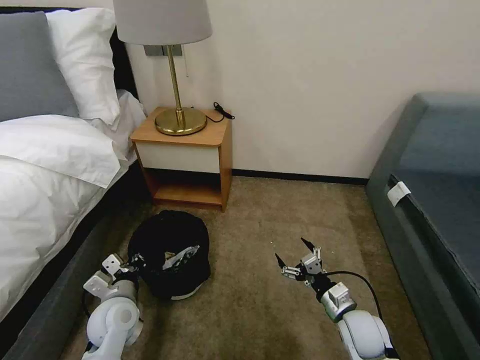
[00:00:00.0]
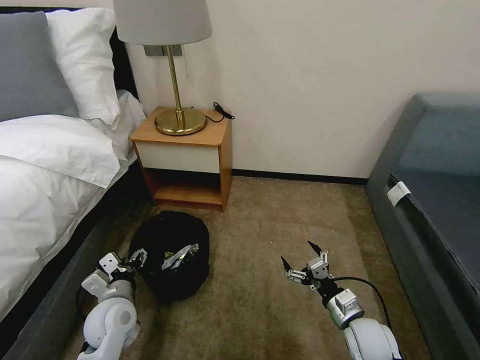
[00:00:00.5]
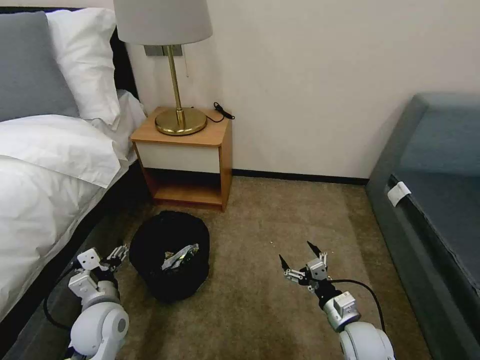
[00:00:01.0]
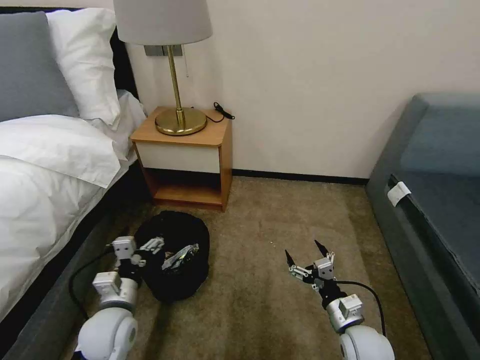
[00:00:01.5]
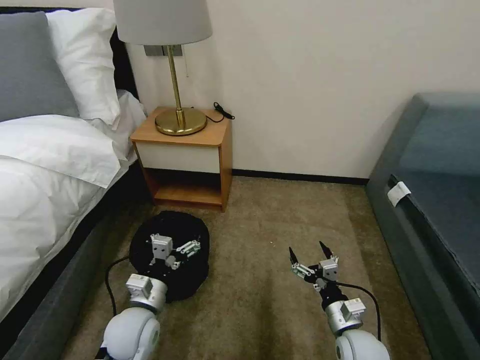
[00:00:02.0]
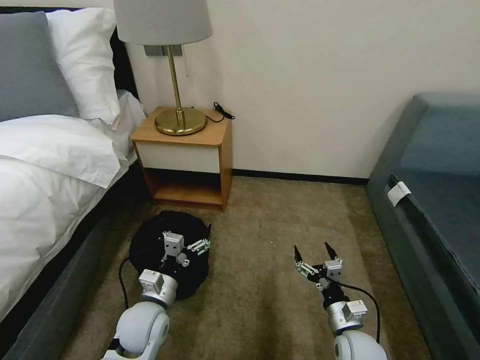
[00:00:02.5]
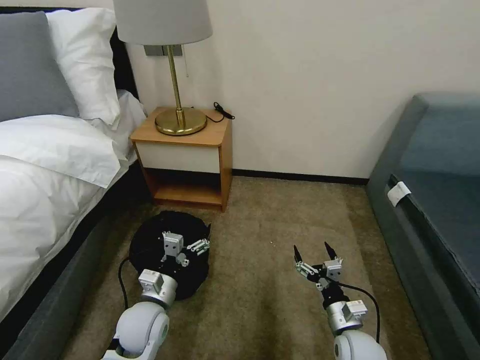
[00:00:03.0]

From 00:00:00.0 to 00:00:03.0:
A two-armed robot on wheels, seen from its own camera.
Task of the whole recording: Pick up the trash bin, then pick up the garbage on the floor and place it into the trash bin.
From 00:00:00.0 to 00:00:01.5: The left gripper opens up.
From 00:00:01.5 to 00:00:03.0: The left gripper is displaced to the right by approximately 5 cm.

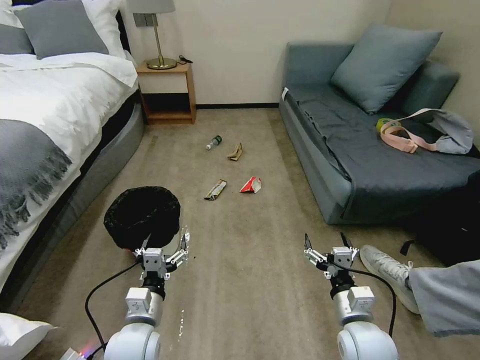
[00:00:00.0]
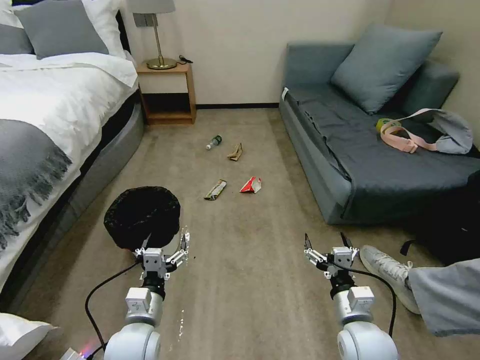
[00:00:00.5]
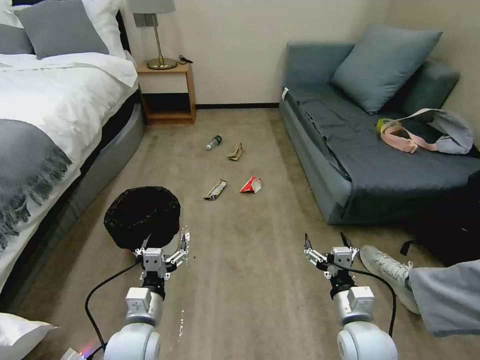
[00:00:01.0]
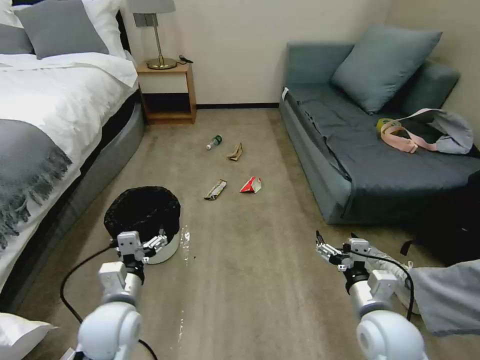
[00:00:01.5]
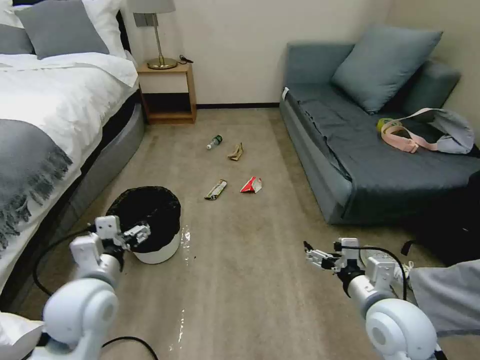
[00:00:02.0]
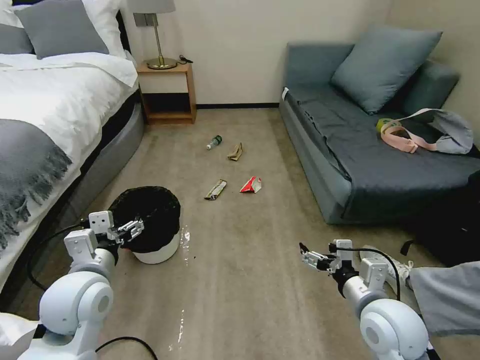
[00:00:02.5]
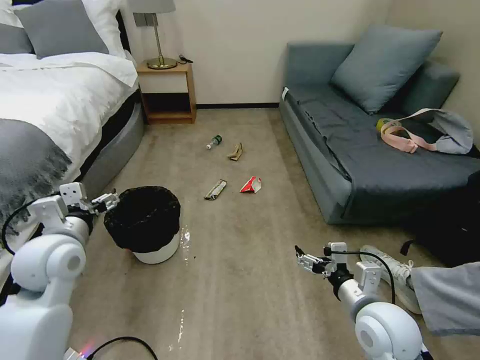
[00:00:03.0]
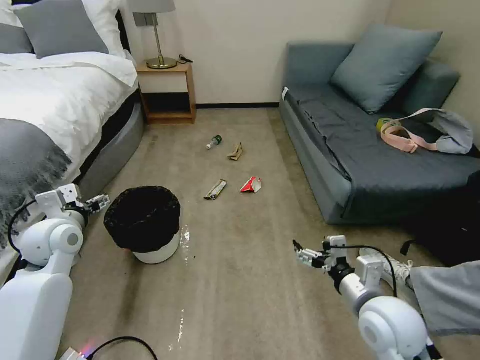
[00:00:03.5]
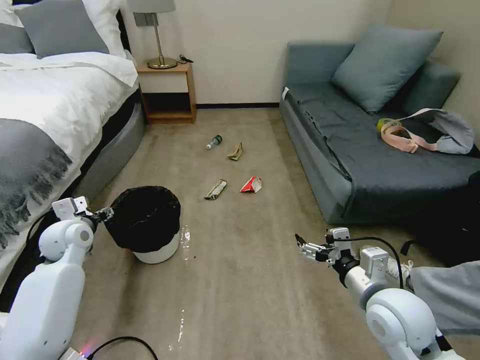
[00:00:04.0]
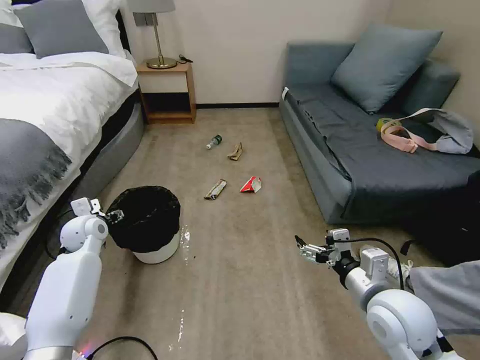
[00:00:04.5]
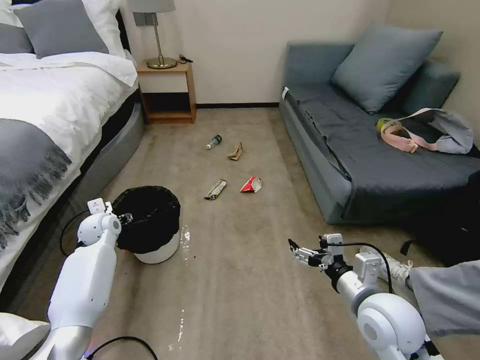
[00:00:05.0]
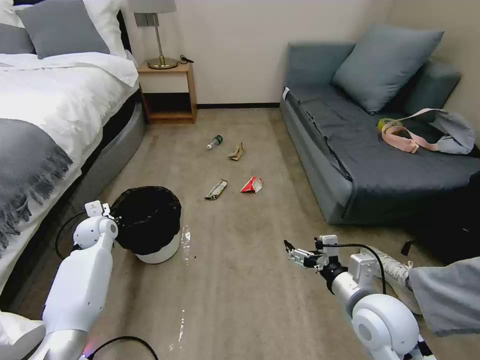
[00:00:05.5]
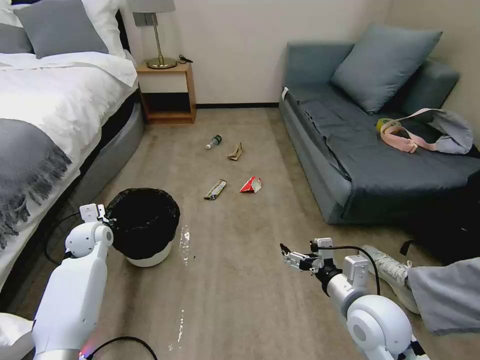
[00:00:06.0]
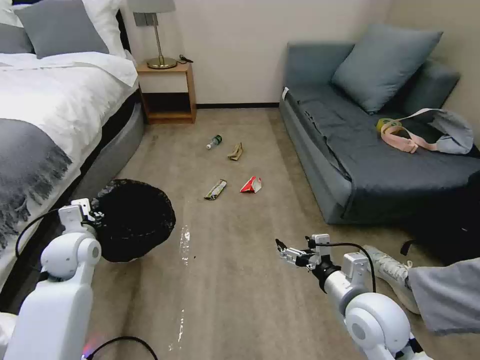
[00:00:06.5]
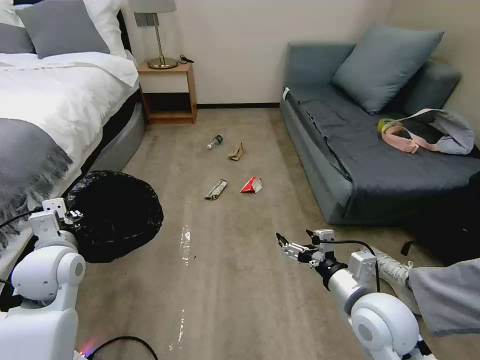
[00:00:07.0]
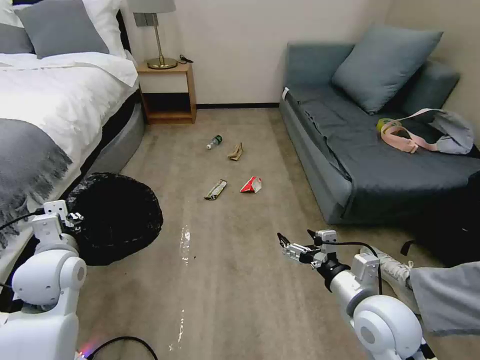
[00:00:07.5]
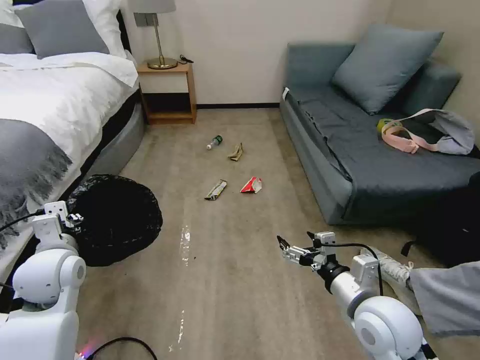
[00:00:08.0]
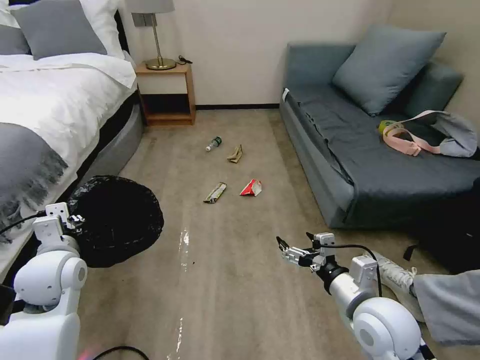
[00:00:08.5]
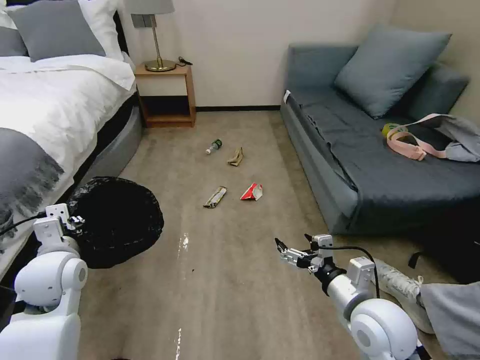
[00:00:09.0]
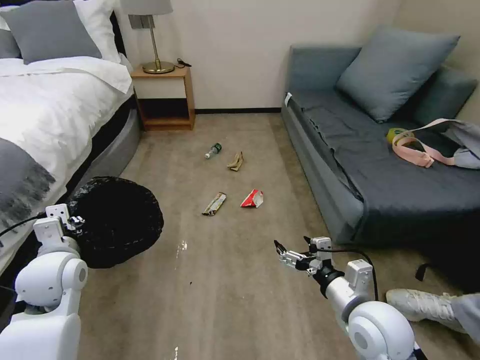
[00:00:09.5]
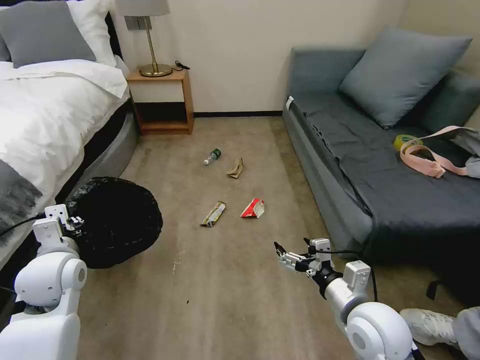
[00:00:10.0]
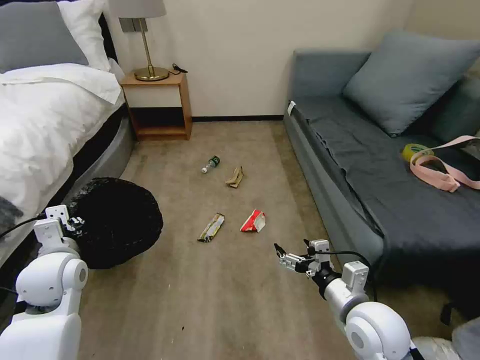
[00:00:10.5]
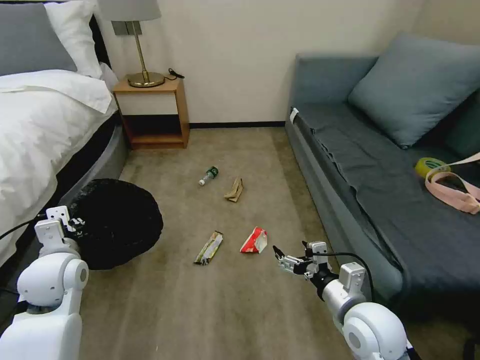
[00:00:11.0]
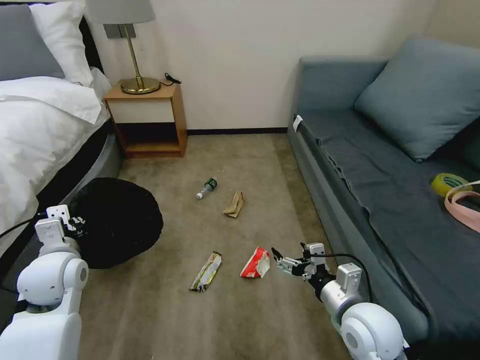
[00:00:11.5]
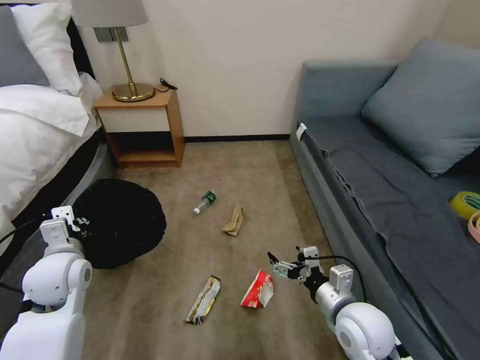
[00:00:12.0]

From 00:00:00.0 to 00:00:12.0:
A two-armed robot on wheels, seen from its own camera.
Task of the whole recording: Pick up the trash bin, then pick up the garbage on the floor and place it into the trash bin.
From 00:00:02.0 to 00:00:04.0: The left gripper travels forward and to the left by about 20 cm.
From 00:00:04.0 to 00:00:06.0: The left gripper travels downward by roughly 5 cm, and closes up.
From 00:00:06.0 to 00:00:08.0: The left gripper shifts some 20 cm backward and upward.

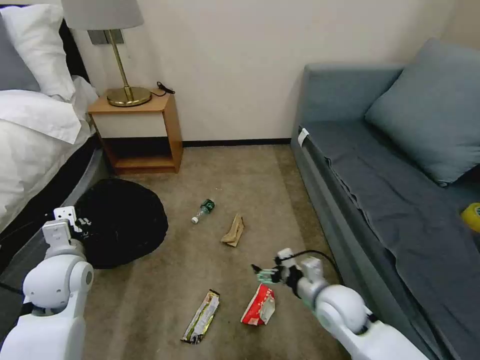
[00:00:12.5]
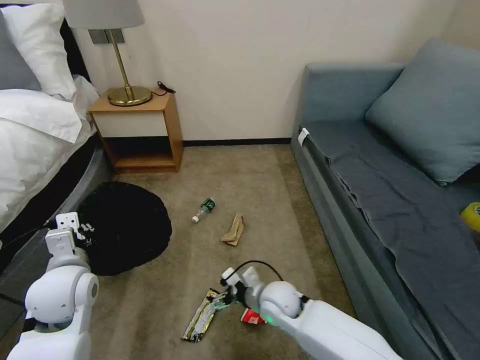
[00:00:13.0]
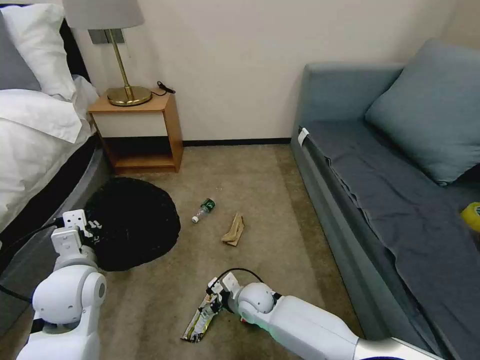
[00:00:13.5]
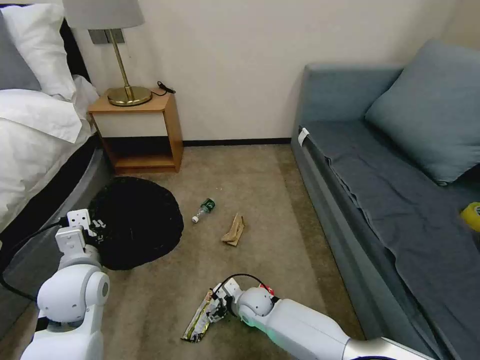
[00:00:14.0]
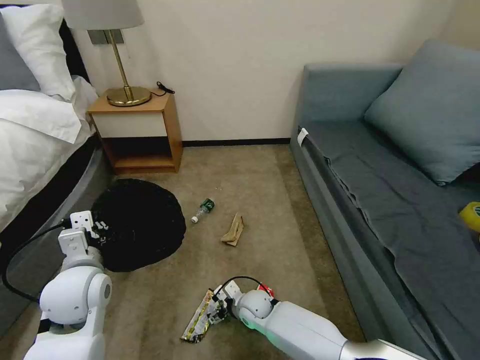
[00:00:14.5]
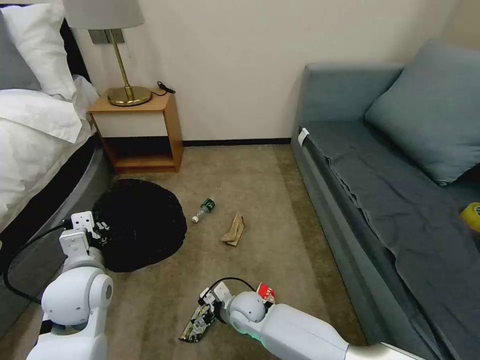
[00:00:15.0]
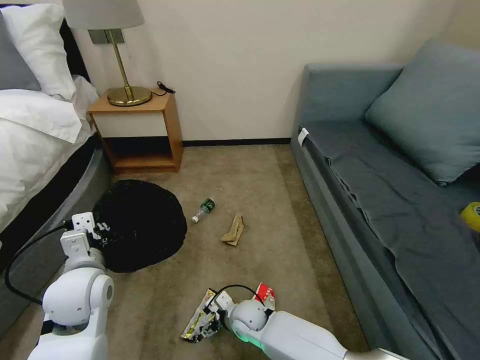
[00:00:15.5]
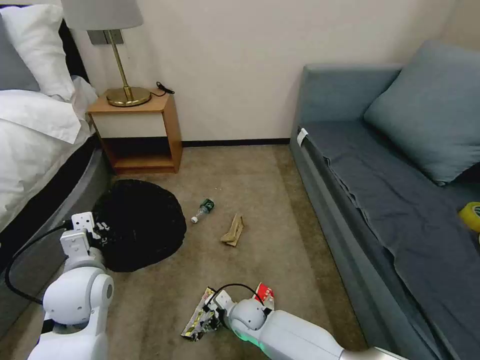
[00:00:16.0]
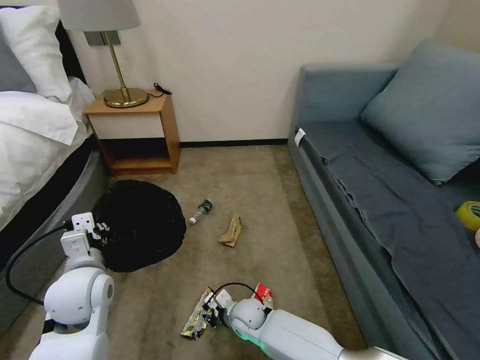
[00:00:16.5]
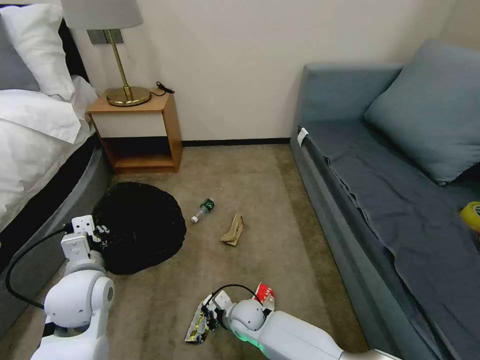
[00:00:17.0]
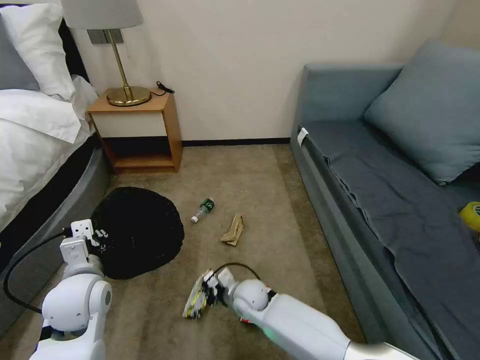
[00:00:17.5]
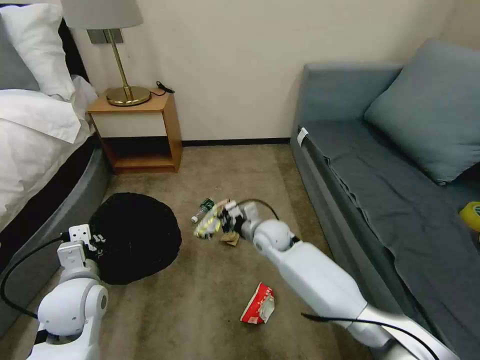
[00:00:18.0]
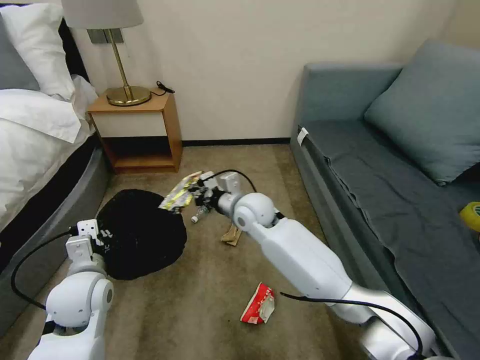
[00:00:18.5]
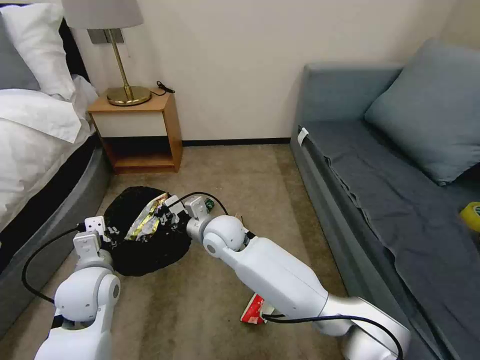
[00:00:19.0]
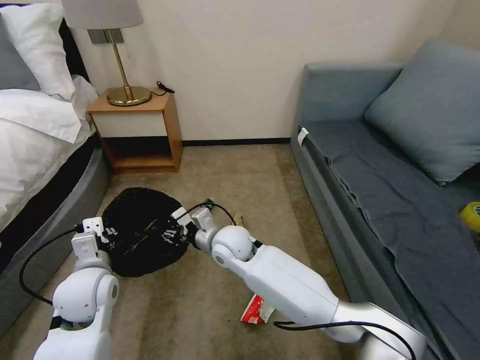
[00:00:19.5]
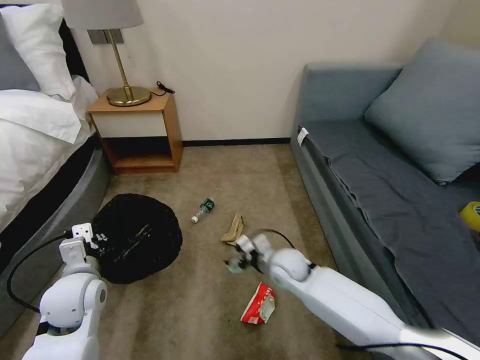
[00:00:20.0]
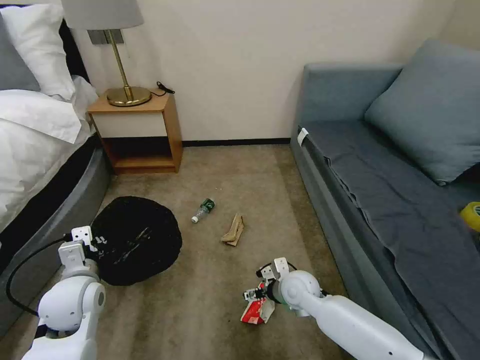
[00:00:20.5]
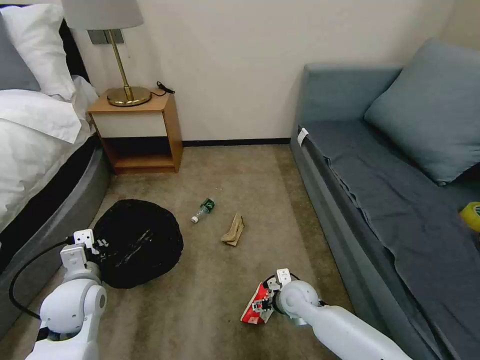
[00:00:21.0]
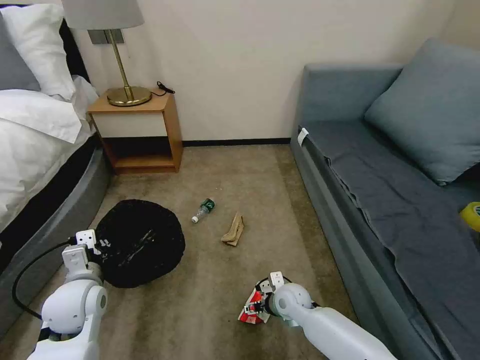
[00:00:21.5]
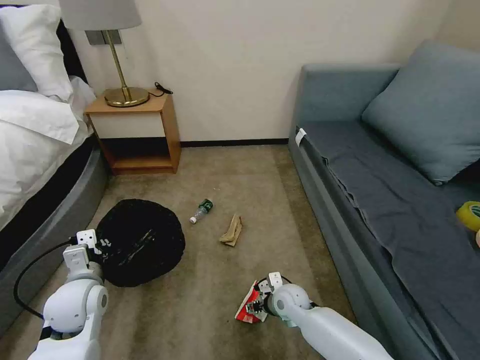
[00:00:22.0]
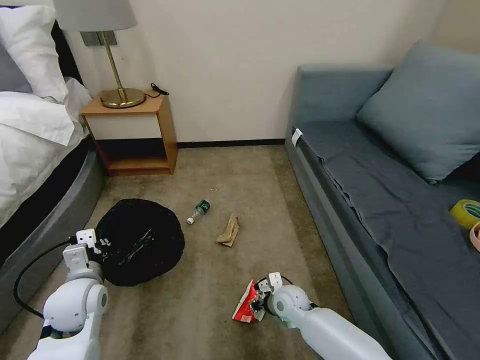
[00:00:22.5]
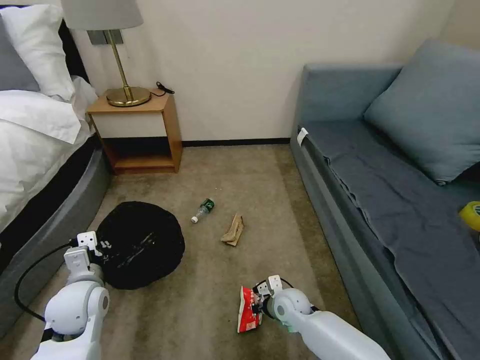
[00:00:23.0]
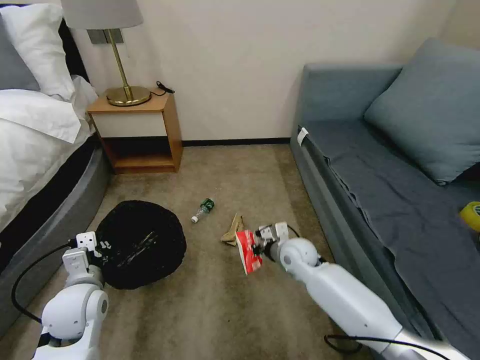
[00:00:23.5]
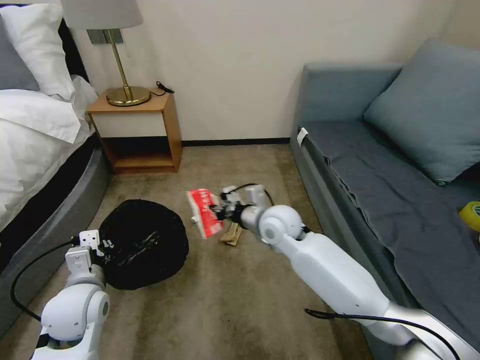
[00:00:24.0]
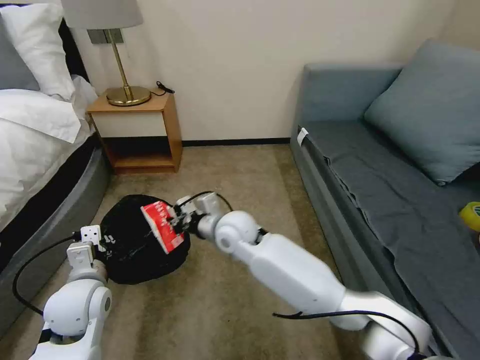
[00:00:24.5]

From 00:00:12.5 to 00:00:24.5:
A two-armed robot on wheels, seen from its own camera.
Task of the whole recording: Pick up the trash bin, then pick up the garbage on the floor and place it into the trash bin.
From 00:00:12.5 to 00:00:14.5: The right gripper is displaced downward and to the left by roughly 25 cm. The left gripper moves to the right, approximately 5 cm.
From 00:00:14.5 to 00:00:16.5: The right gripper closes.
From 00:00:16.5 to 00:00:18.5: The right gripper is displaced upward and forward by about 30 cm, and closes.
From 00:00:18.5 to 00:00:20.5: The right gripper goes roughly 25 cm downward, backward and to the right, and opens.
From 00:00:20.5 to 00:00:22.5: The right gripper goes approximately 10 cm downward, and closes up.
From 00:00:22.5 to 00:00:24.5: The right gripper travels upward and to the left by some 30 cm, and closes up.
